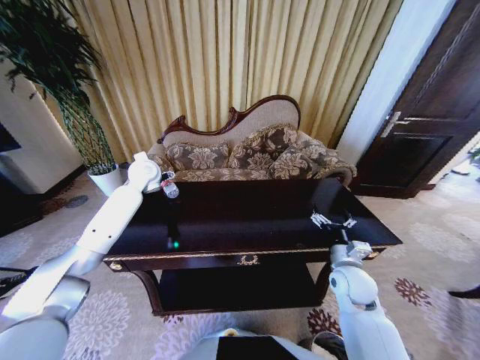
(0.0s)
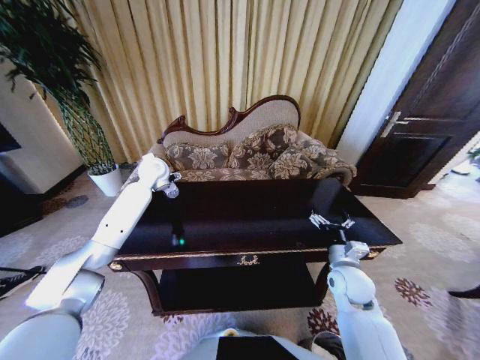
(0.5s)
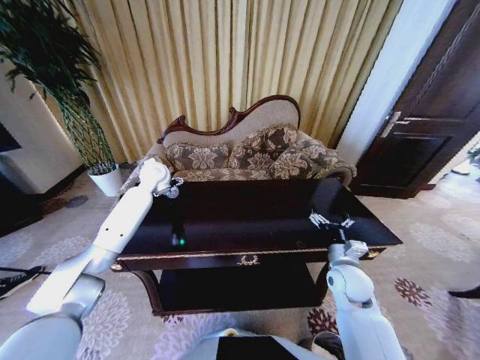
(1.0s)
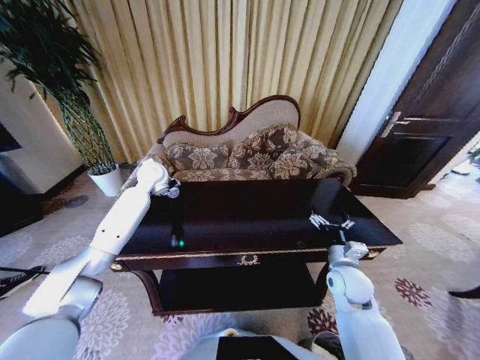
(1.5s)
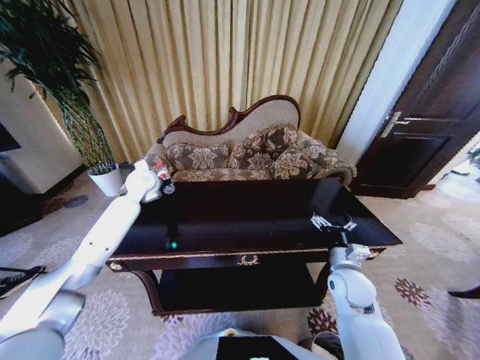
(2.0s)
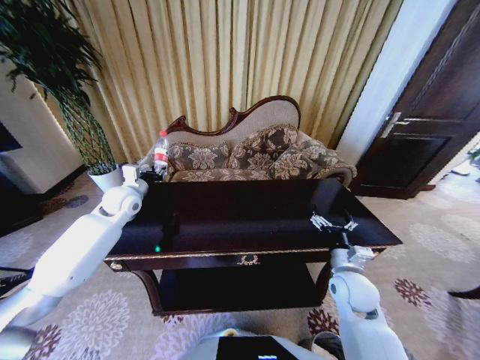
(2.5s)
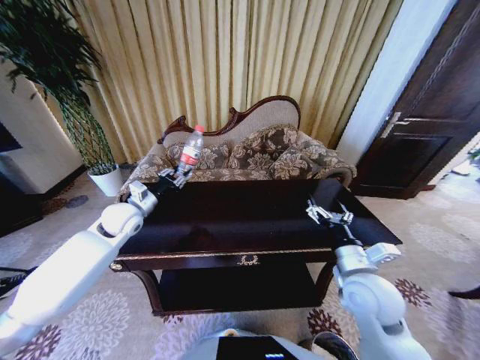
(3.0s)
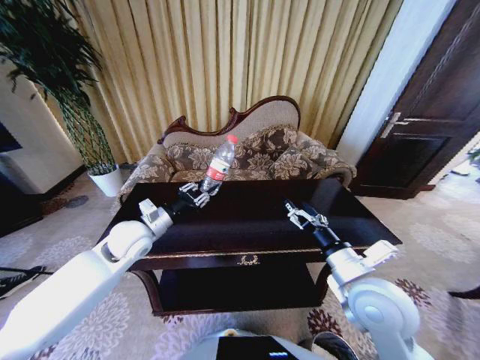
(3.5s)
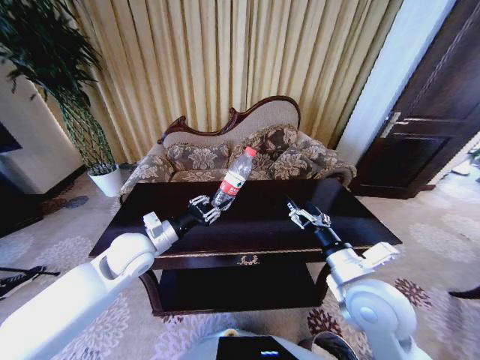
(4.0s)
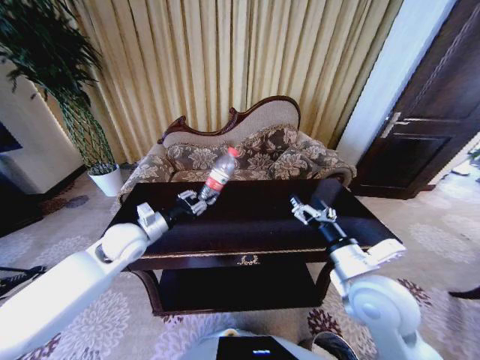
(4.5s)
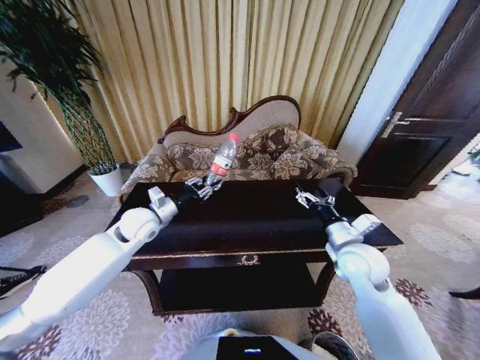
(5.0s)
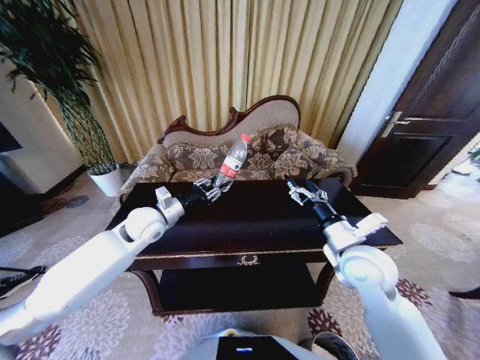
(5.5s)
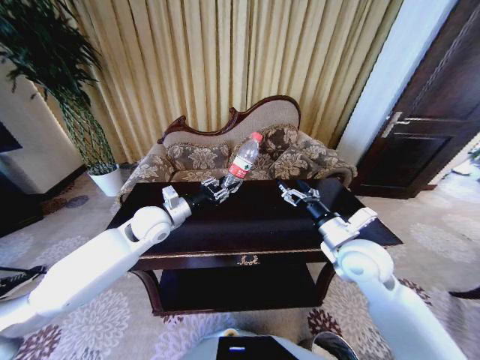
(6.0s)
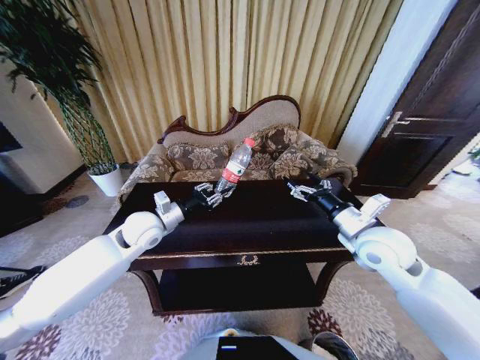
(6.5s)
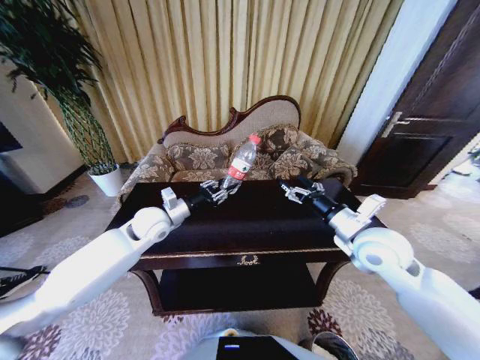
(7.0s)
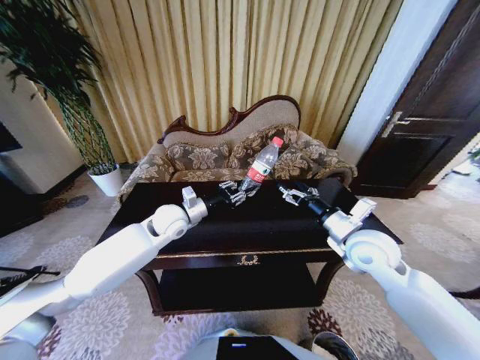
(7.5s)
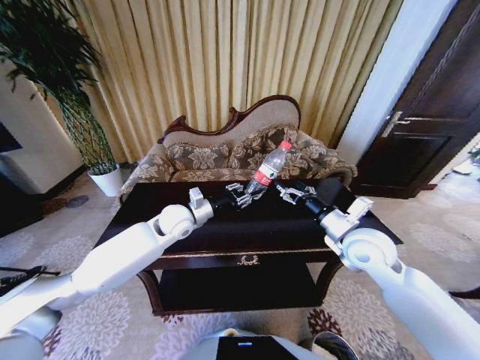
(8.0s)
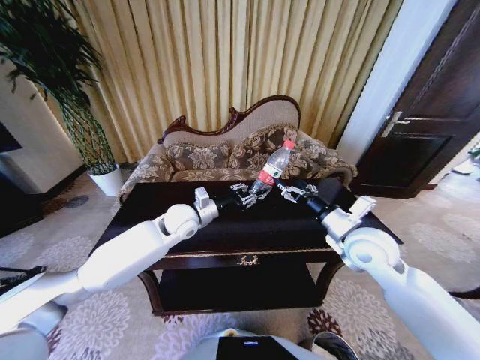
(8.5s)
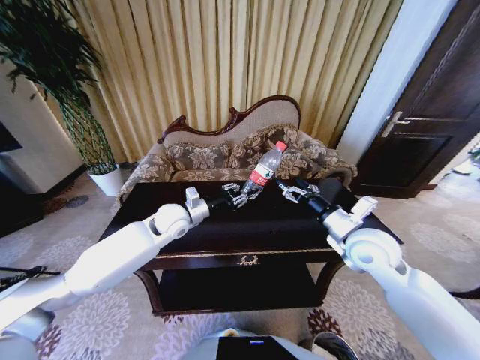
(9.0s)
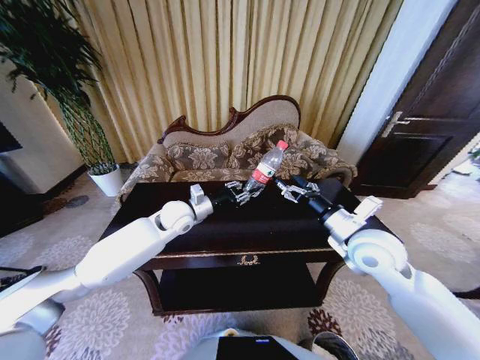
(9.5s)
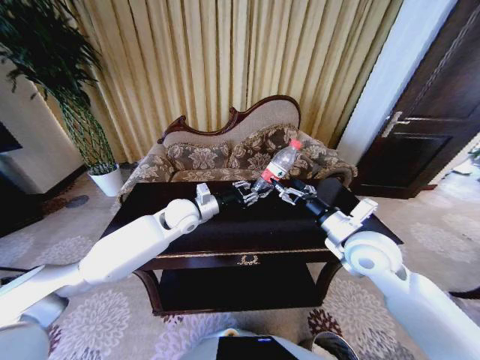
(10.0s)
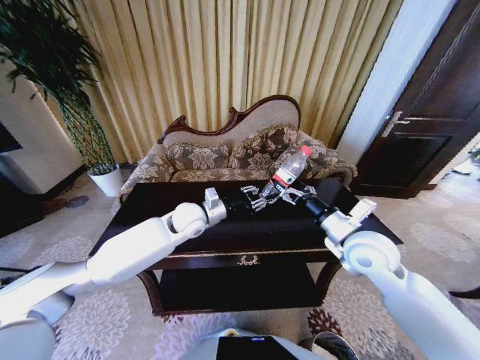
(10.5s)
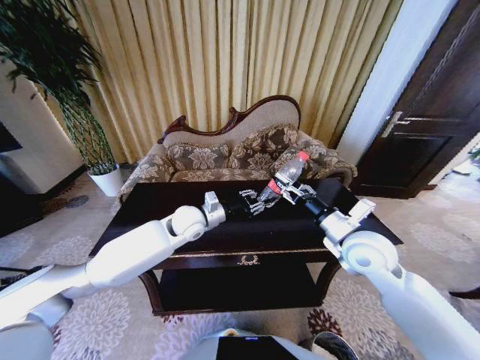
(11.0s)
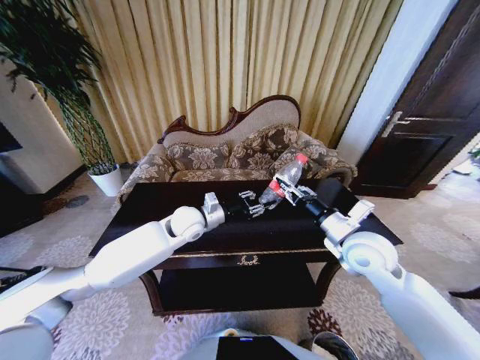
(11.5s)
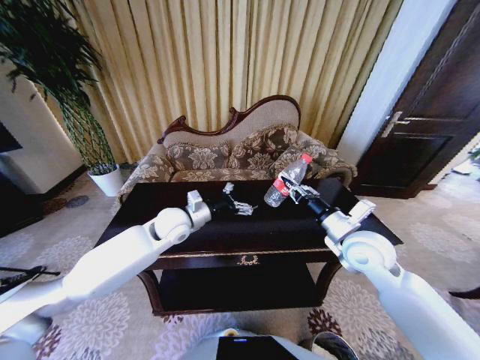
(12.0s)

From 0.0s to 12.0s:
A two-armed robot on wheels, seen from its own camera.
Task of the whole recording: Move to the front of the table and place the trash on the table into the trash bin.
From 0.0s to 2.0s: The left gripper closes its fingers.
From 2.0s to 4.0s: The left gripper is displaced backward by about 20 cm; the right gripper shifts approximately 15 cm upward, backward and to the left.
From 4.0s to 6.0s: Both grippers move forward, about 10 cm.
From 6.0s to 8.0s: The left gripper moves to the right, approximately 5 cm.
From 8.0s to 10.0s: The grippers stay close to where they were, moving slightly.
From 10.0s to 12.0s: The right gripper closes up; the left gripper opens up.

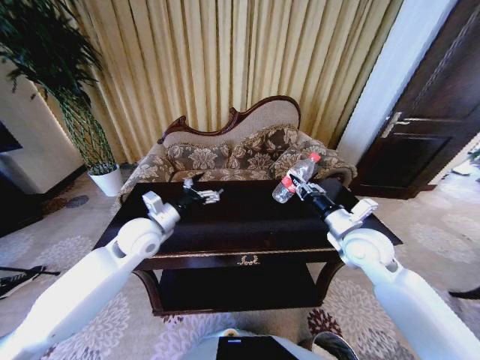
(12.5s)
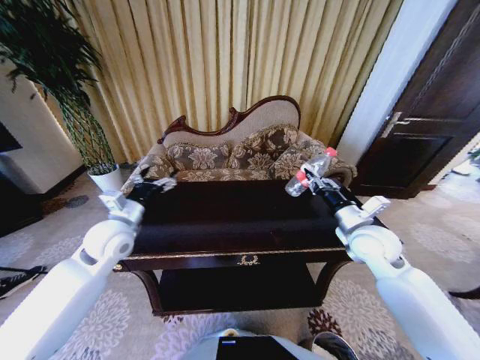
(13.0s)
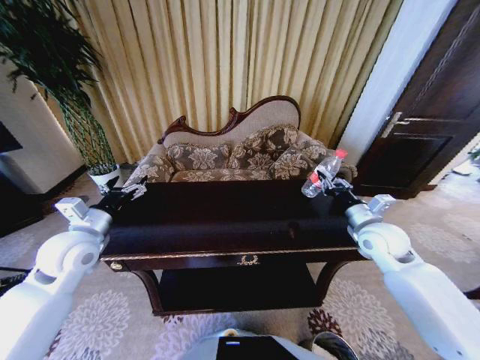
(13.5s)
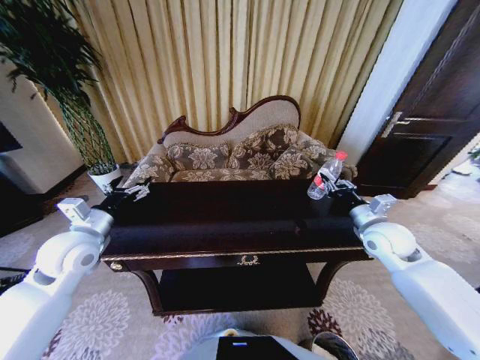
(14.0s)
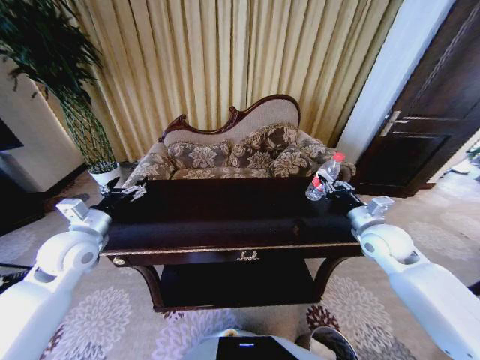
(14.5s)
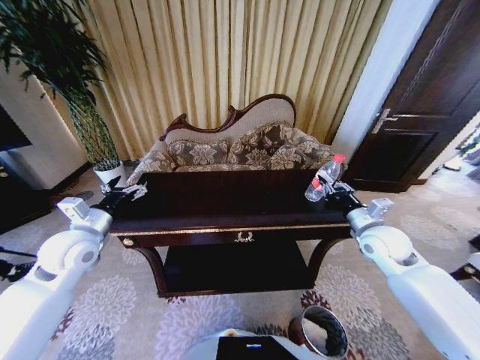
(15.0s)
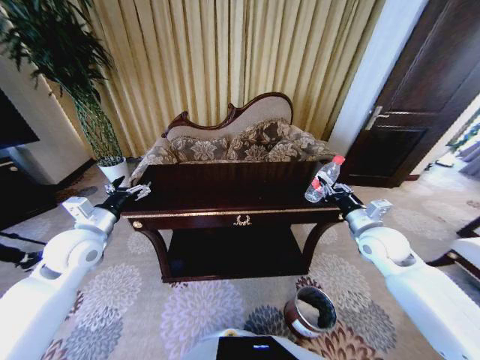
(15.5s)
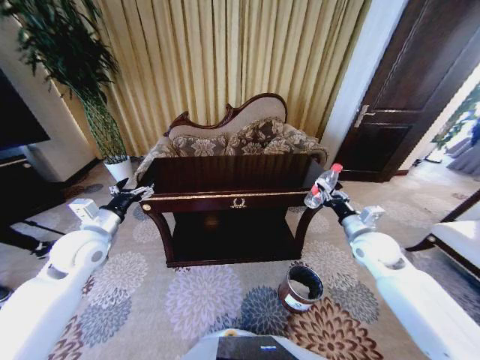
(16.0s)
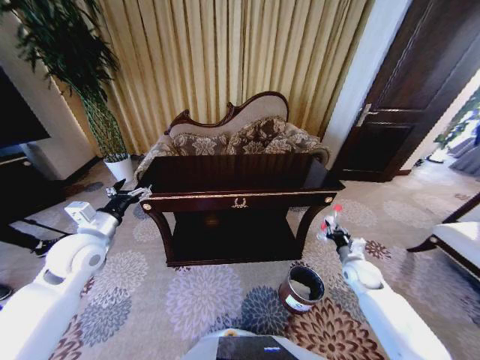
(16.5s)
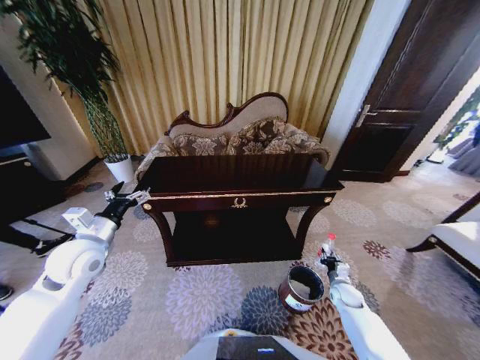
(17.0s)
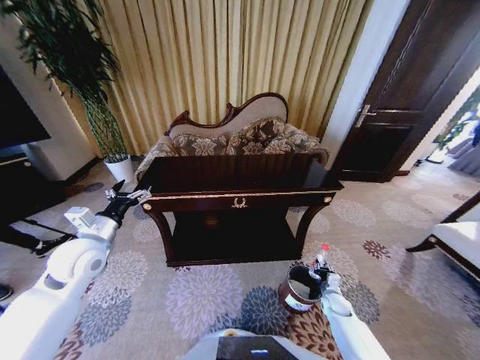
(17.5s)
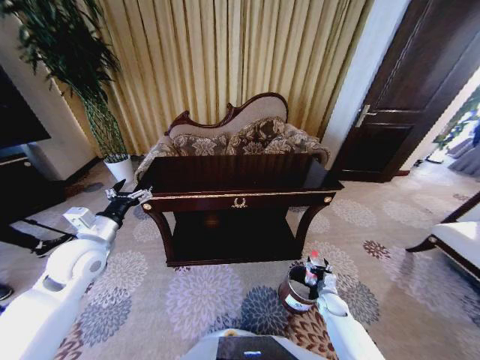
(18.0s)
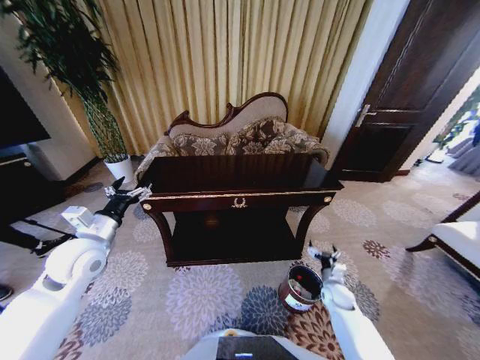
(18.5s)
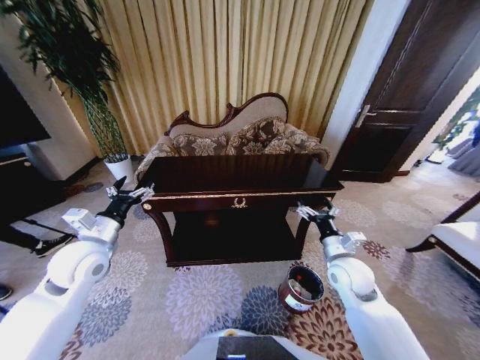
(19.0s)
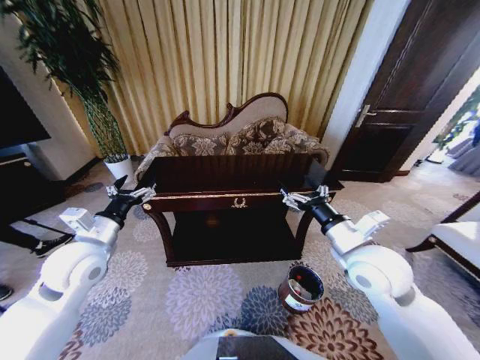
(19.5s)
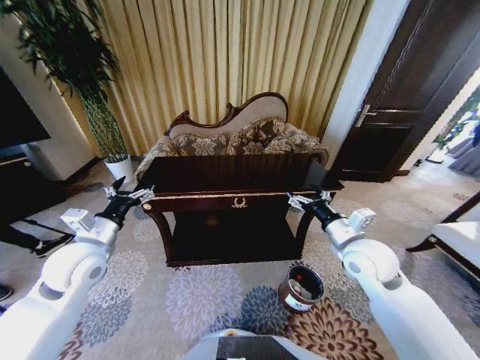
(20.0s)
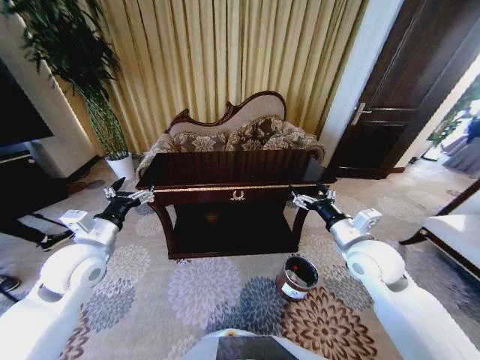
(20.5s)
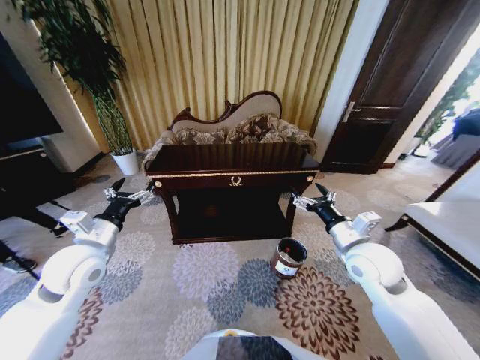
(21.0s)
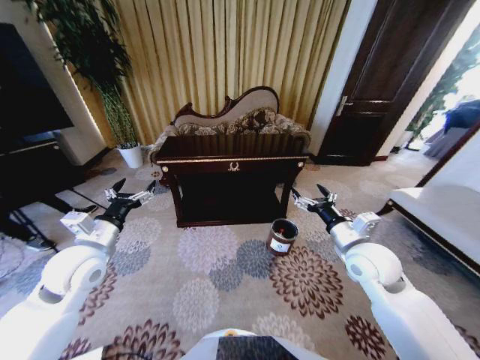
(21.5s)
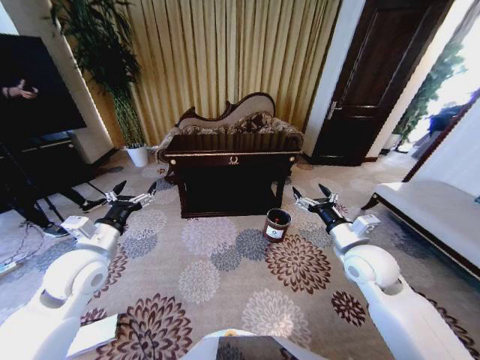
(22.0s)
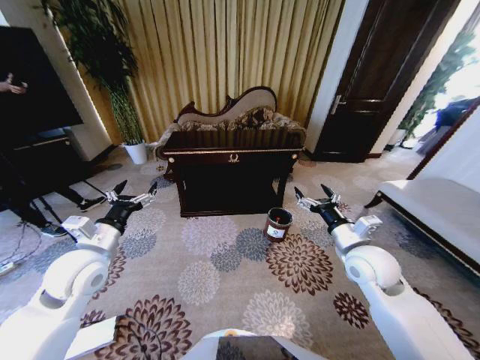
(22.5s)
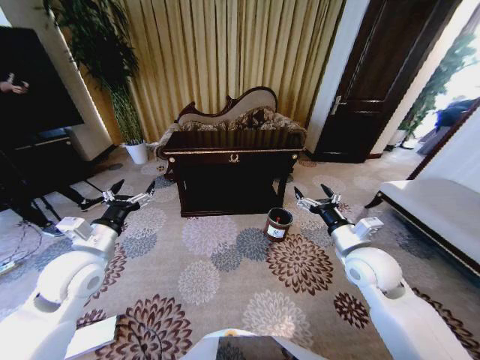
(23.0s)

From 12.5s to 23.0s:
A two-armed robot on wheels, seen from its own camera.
Task of the whole recording: Move to the front of the table and place the trash on the table into the trash bin.
From 12.5s to 14.5s: The left gripper heads to the left, covering about 15 cm. Meanwhile the right gripper goes some 10 cm to the right.
From 14.5s to 16.5s: The right gripper travels downward by approximately 20 cm.
From 16.5s to 19.0s: The right gripper travels to the left and upward by approximately 20 cm, and opens its fingers.
From 19.0s to 21.0s: The right gripper is displaced upward by approximately 5 cm.

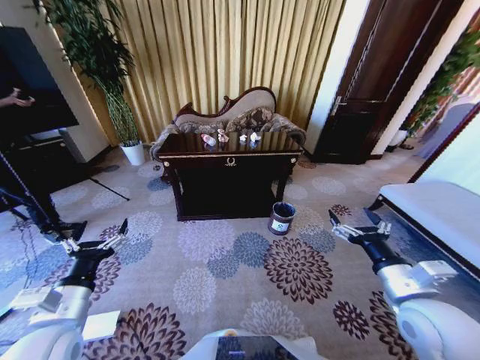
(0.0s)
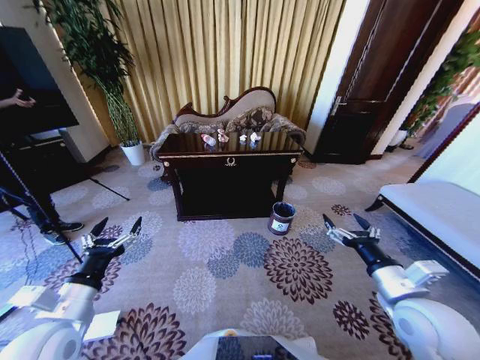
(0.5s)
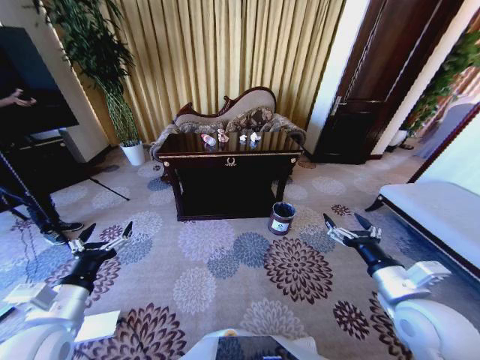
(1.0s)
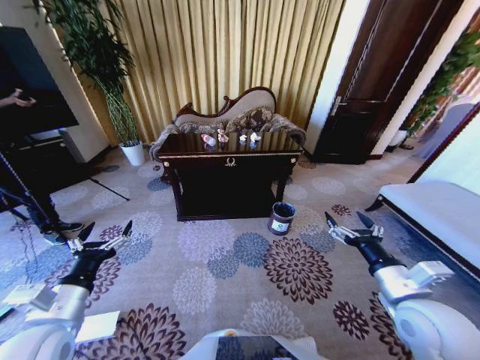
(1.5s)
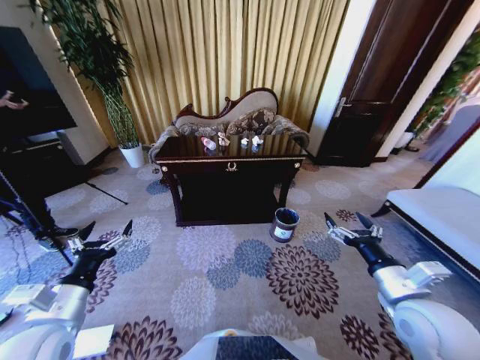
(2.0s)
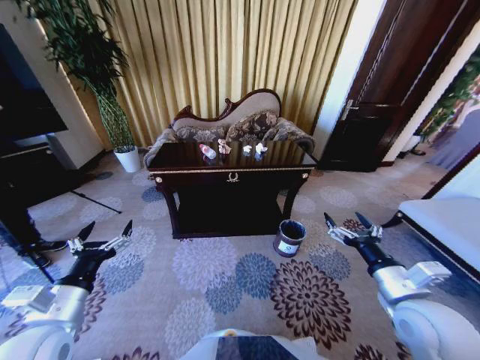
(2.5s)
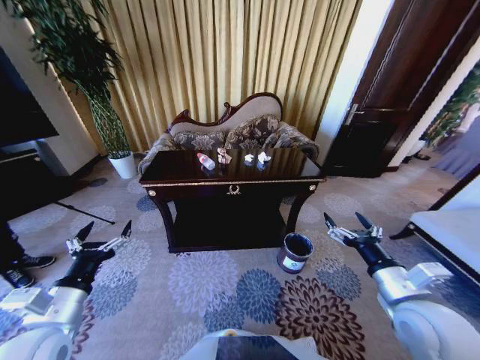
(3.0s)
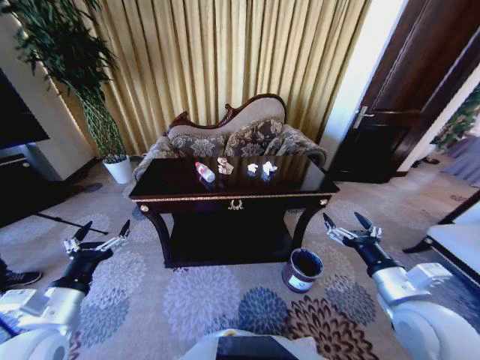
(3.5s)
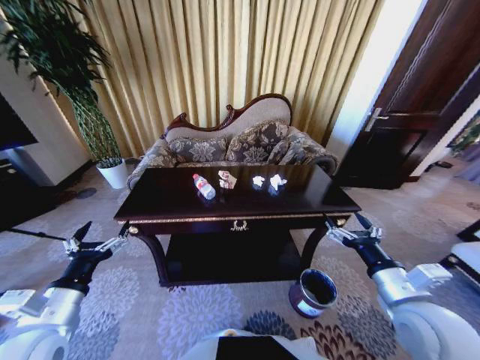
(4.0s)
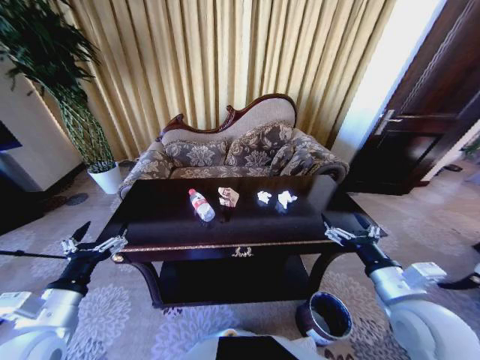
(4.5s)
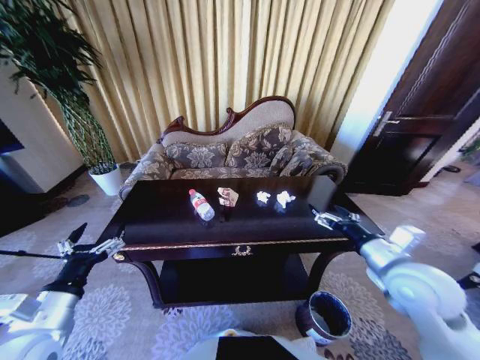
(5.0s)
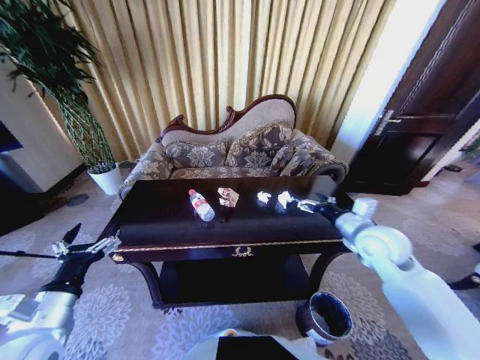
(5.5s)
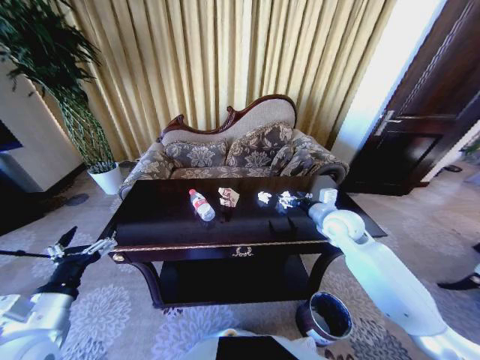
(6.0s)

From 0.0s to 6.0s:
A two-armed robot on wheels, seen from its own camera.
Task of the whole recording: Move to the front of the table and place the trash on the table into the trash bin.
From 4.0s to 6.0s: The right gripper travels forward by approximately 25 cm.
